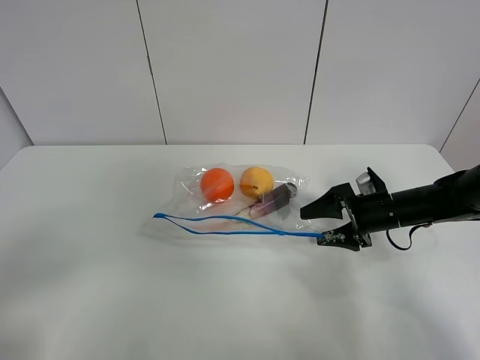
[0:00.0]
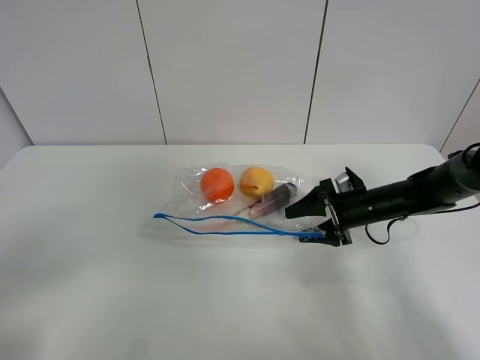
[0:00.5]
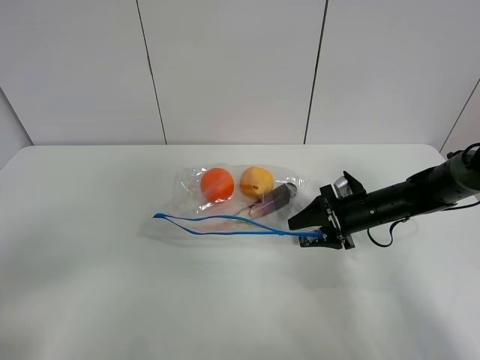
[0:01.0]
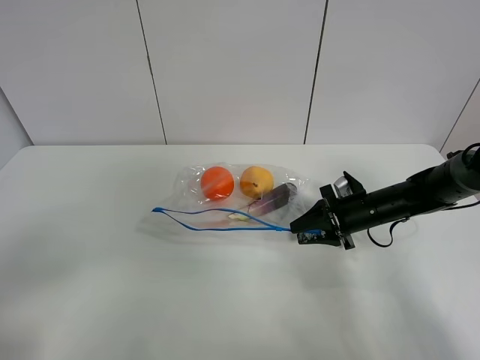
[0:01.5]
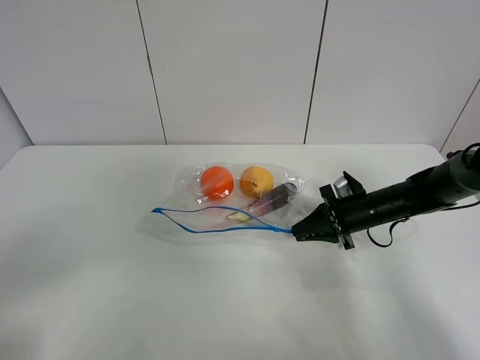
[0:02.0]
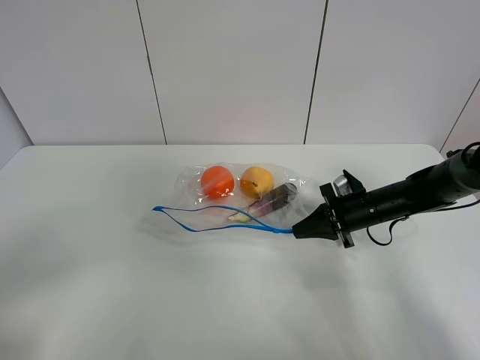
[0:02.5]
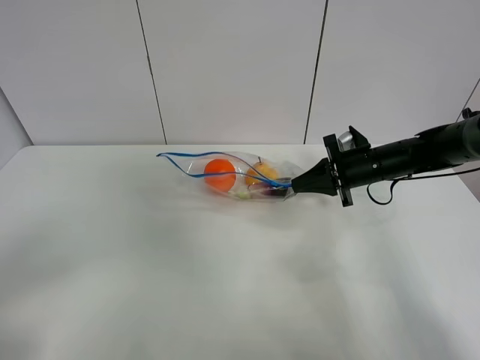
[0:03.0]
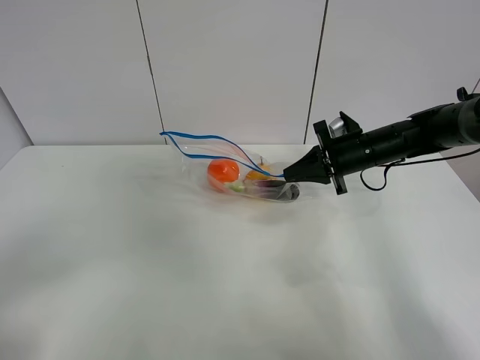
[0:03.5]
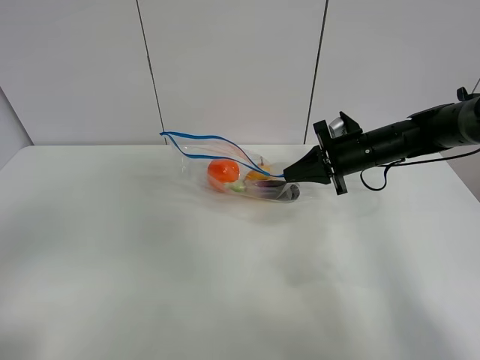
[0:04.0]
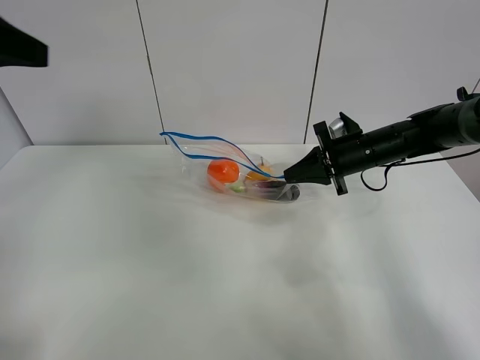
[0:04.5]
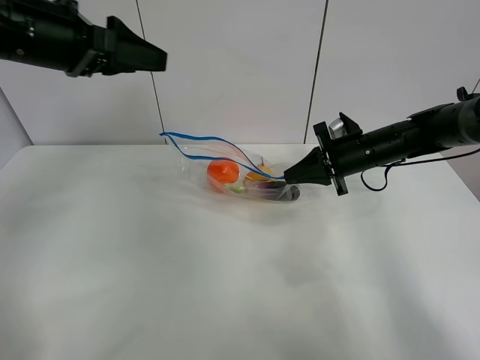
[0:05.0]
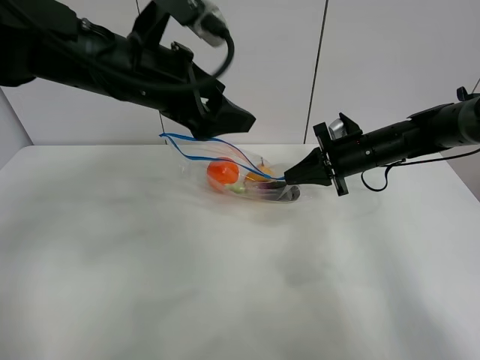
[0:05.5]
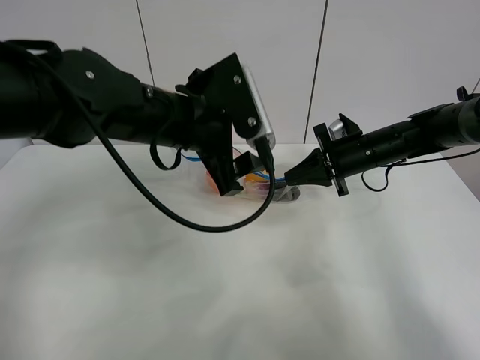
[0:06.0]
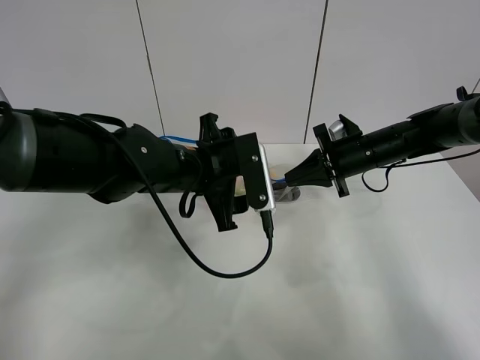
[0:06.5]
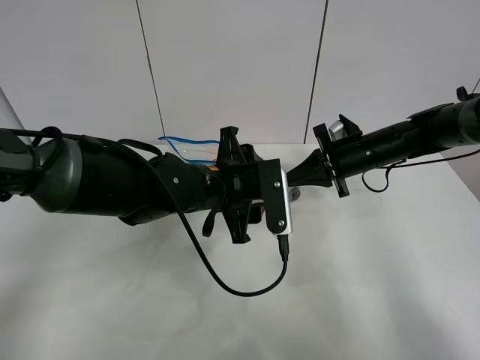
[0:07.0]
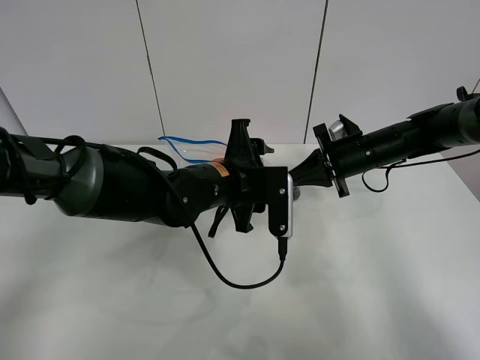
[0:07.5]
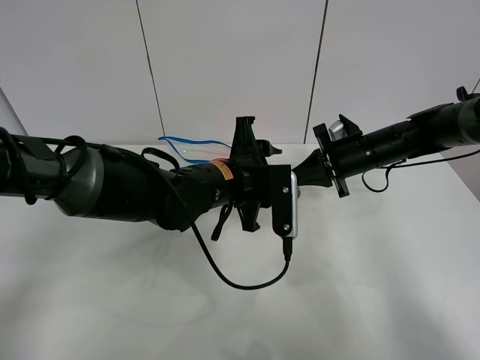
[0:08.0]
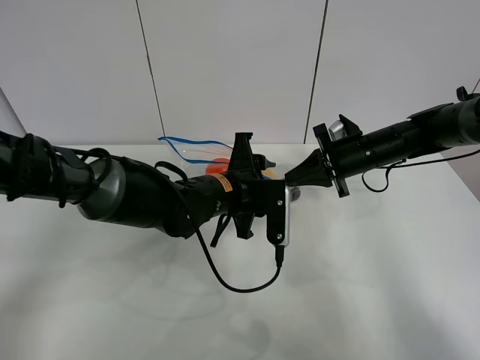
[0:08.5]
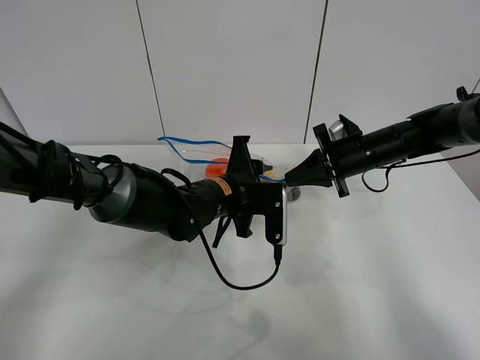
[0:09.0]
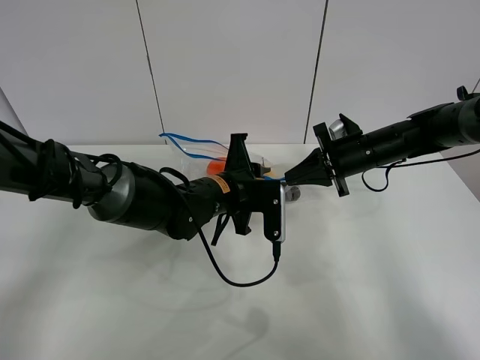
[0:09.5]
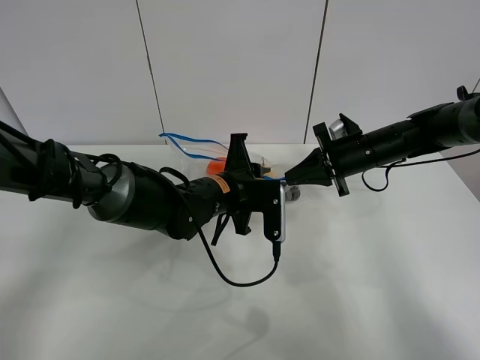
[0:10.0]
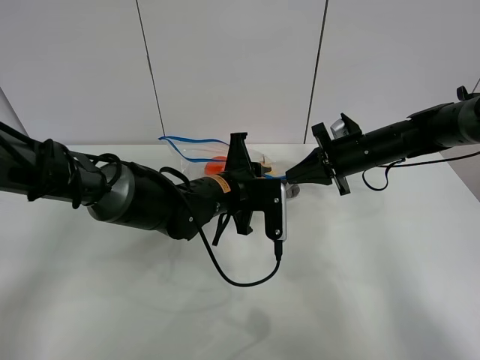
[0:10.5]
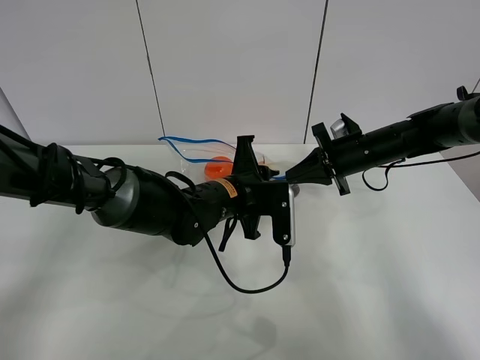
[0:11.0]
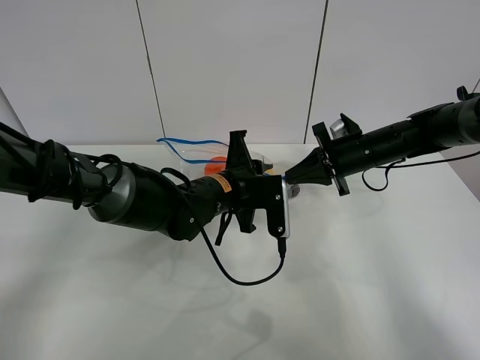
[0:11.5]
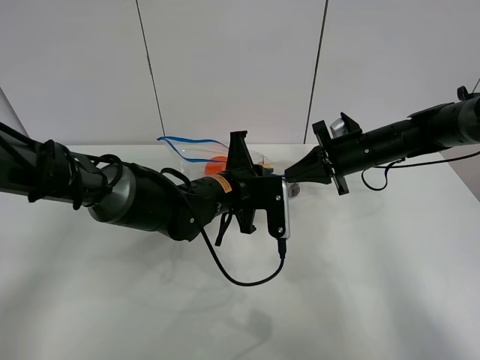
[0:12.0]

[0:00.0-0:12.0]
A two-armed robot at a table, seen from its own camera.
Step, 0.0 to 2.0 s: Grasp the fruit bag with right gripper.
Step, 2.5 to 3.0 s: Lift the fruit bag with your right gripper.
0.0 to 2.0 s: The right gripper closes.
2.0 to 4.0 s: The two grippers go roughly 10 cm upward.
4.0 to 6.0 s: The left gripper heads forward and to the right, covering some 35 cm.
6.0 to 8.0 s: The left gripper goes about 10 cm downward.
8.0 to 10.0 s: The left gripper moves approximately 5 cm, and closes up.
10.0 to 12.0 s: The grippers make only small movements.

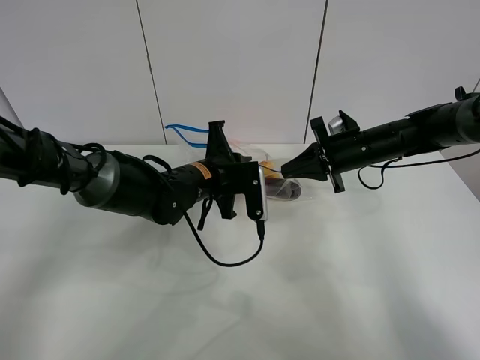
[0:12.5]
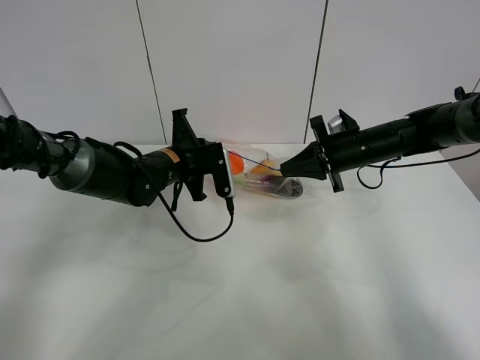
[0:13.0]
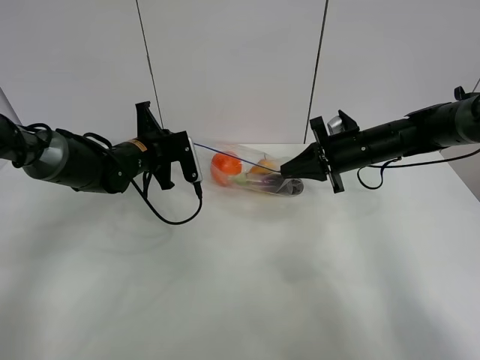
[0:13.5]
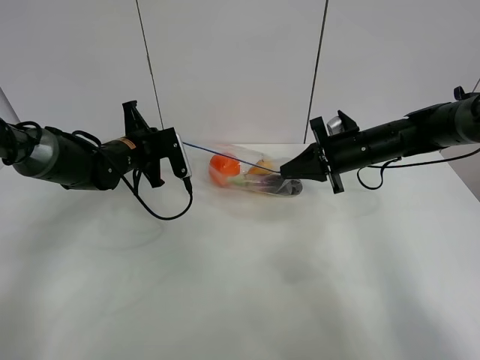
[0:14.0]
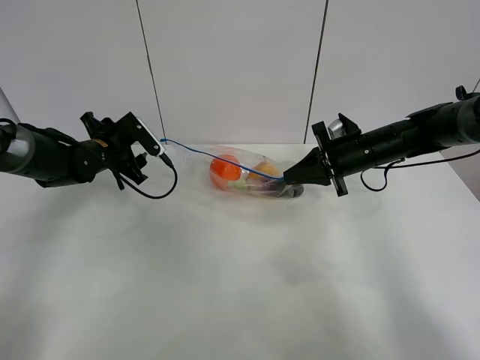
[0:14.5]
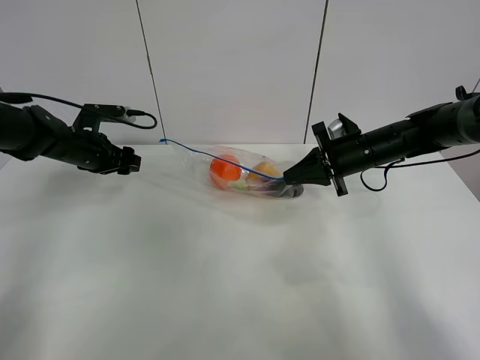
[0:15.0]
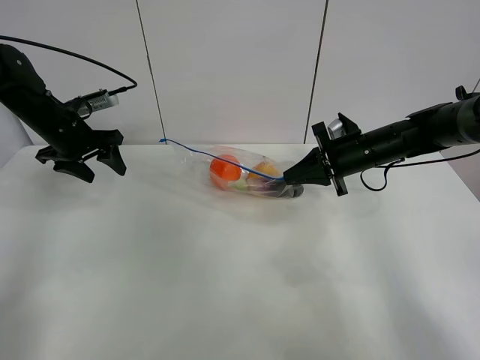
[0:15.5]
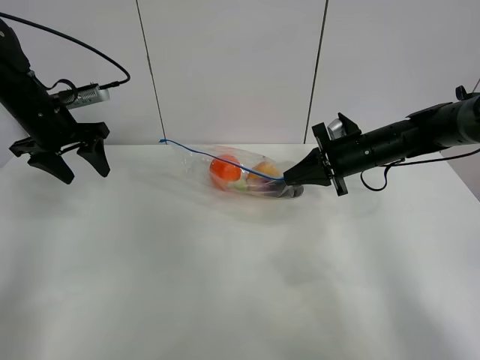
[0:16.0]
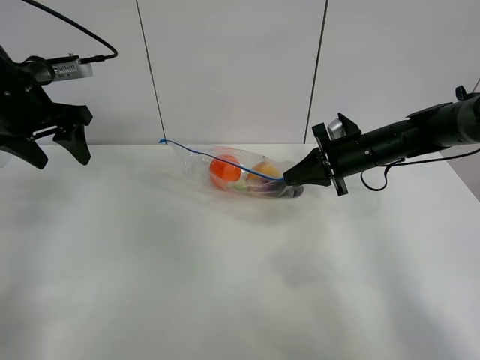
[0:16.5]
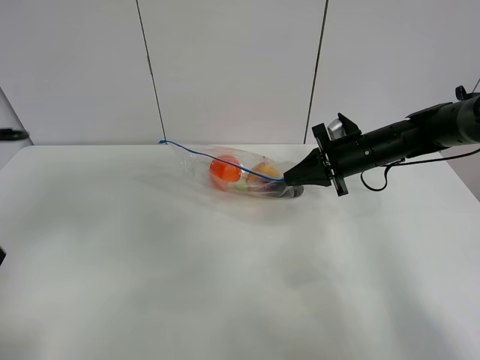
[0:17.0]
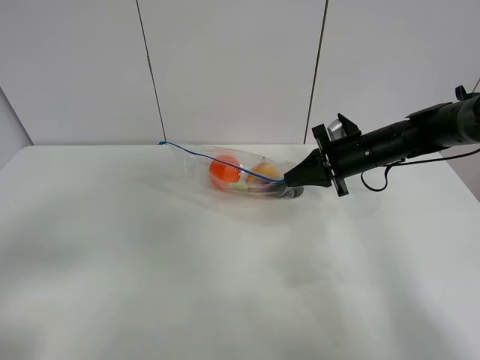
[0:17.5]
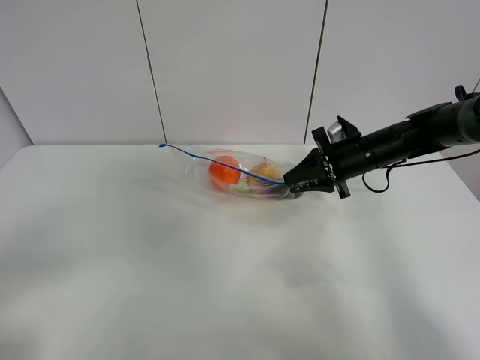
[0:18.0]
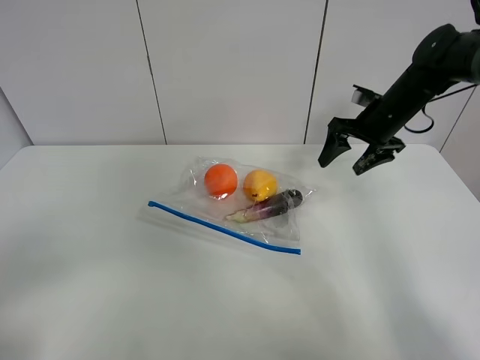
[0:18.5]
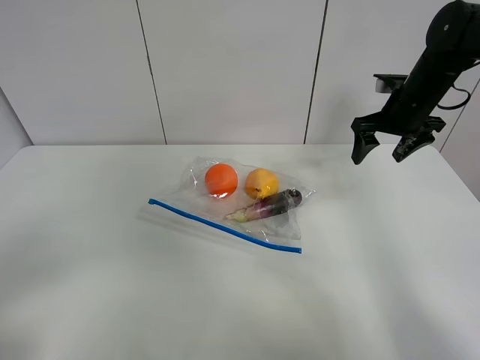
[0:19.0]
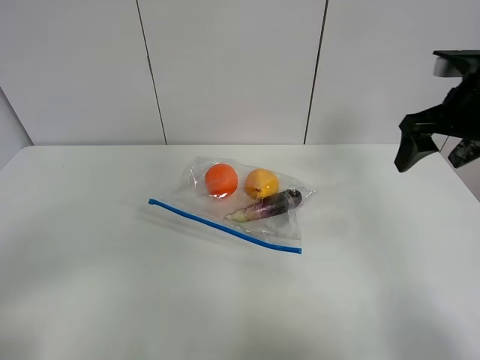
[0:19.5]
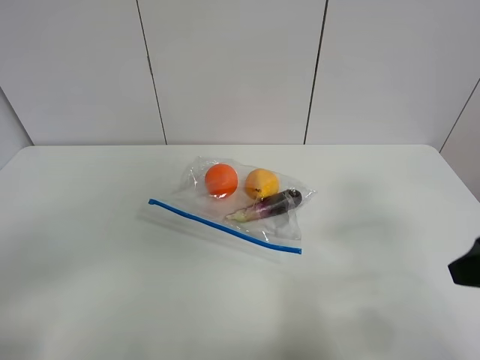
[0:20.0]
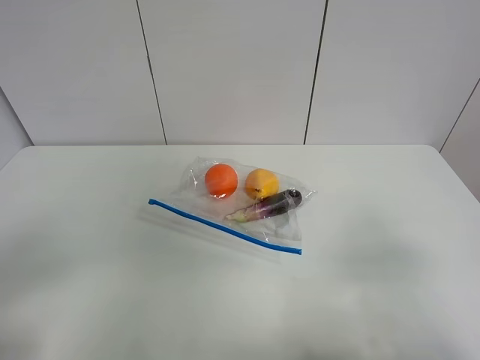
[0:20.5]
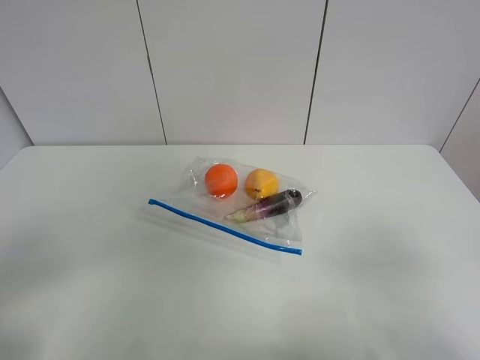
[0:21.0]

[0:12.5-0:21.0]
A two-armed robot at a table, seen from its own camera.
12.5 to 14.5 s: The left gripper travels to the left by roughly 20 cm, and opens its fingers.
14.5 to 16.5 s: The left gripper travels upward and backward by roughly 20 cm.
16.5 to 19.0 s: The right gripper shifts some 10 cm upward and to the right, and opens its fingers; the left gripper is displaced backward by roughly 35 cm.
19.0 to 21.0 s: The right gripper moves backward, some 40 cm.

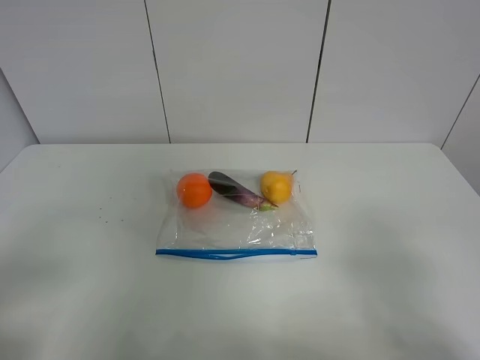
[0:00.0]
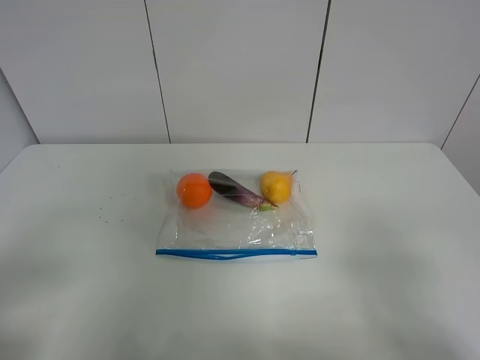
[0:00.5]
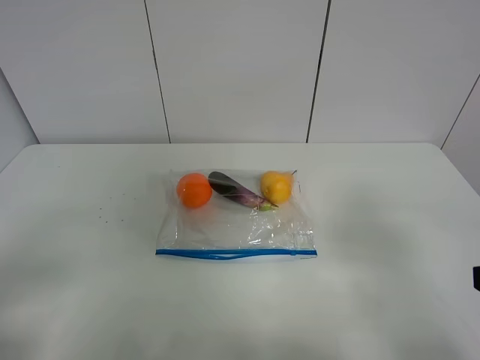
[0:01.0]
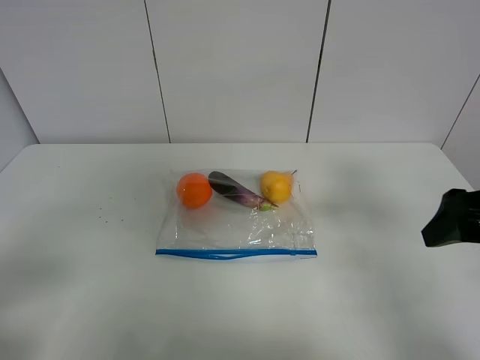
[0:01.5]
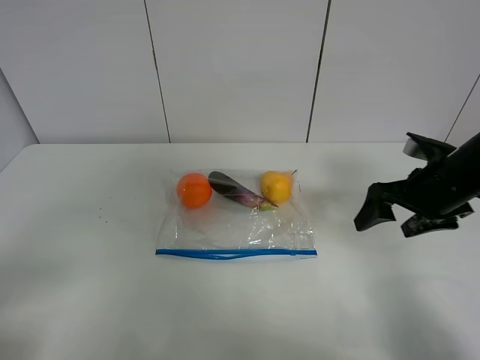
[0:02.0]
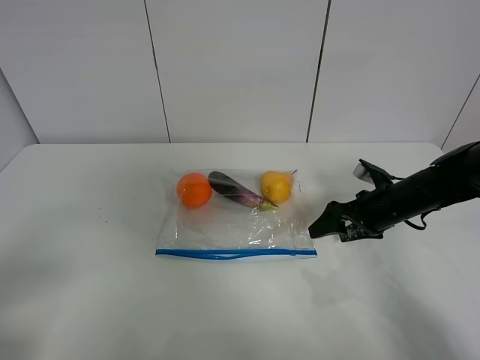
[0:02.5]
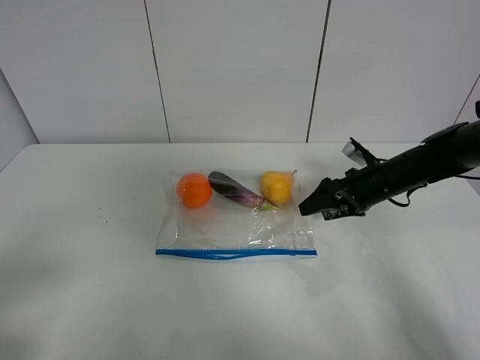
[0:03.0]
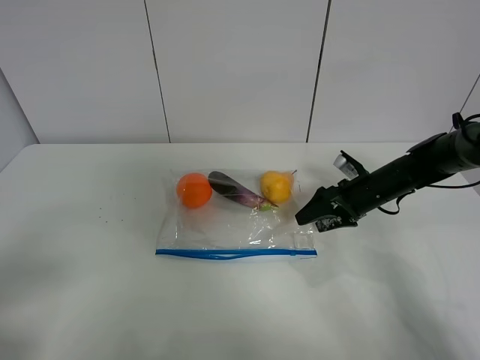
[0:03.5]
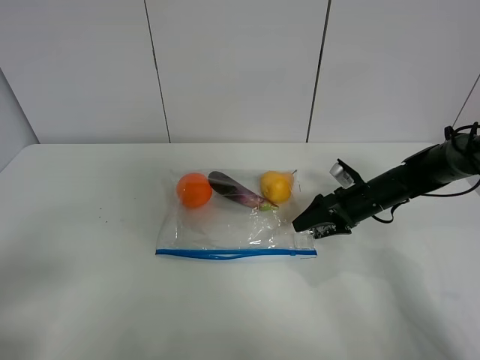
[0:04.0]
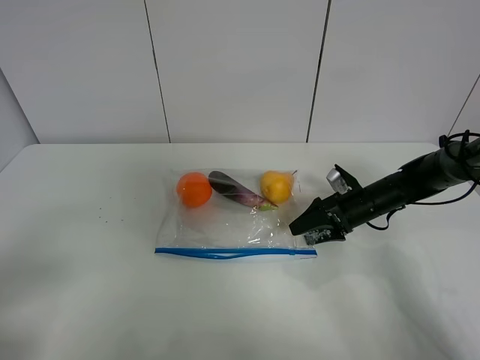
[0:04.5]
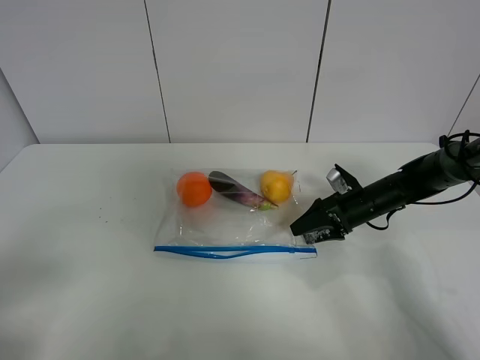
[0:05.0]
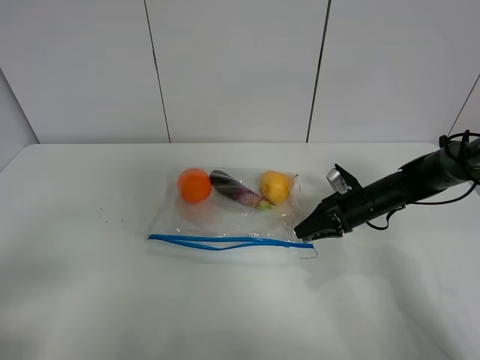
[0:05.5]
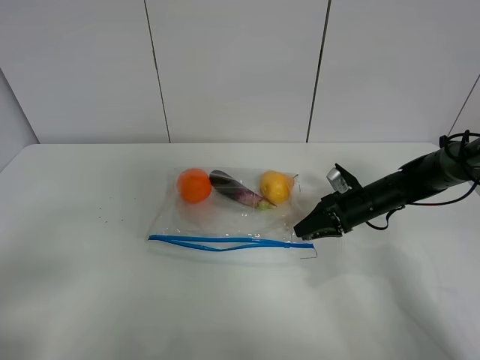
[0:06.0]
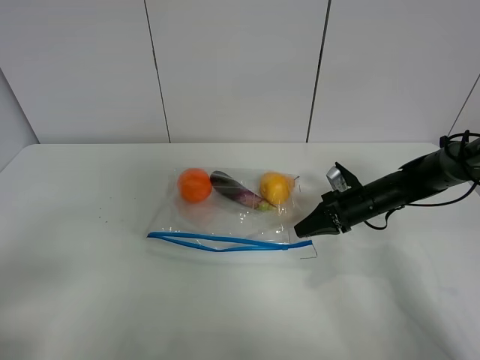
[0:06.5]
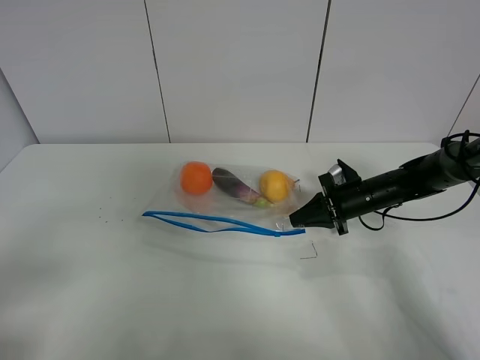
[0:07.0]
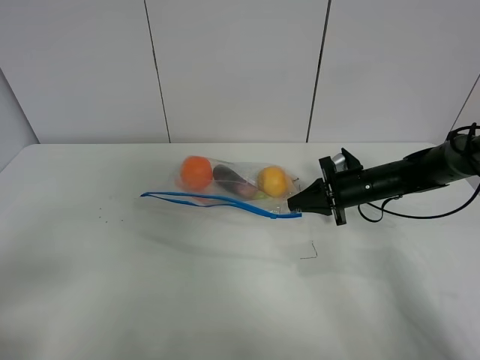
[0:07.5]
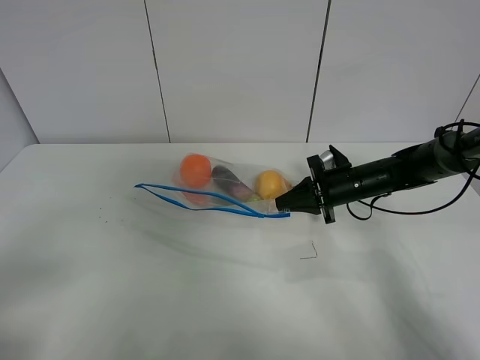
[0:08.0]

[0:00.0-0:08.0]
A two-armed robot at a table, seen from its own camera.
Step, 0.0 to 6.5 s: Grasp the fruit bag with right gripper.
0.0 to 2.0 s: The right gripper shifts approximately 30 cm forward.
2.0 to 4.0 s: The right gripper travels downward and forward by roughly 15 cm.
4.0 to 6.0 s: The right gripper closes.
6.0 to 8.0 s: The right gripper closes its fingers.
